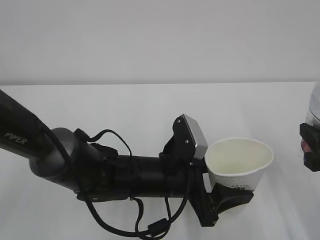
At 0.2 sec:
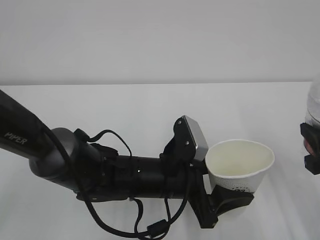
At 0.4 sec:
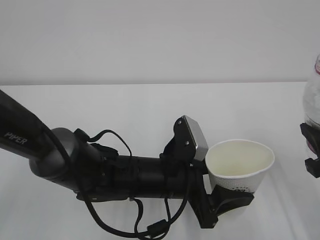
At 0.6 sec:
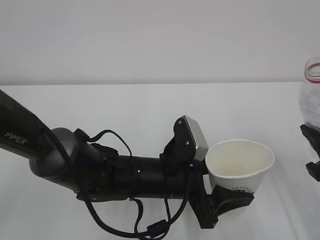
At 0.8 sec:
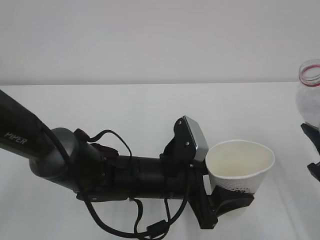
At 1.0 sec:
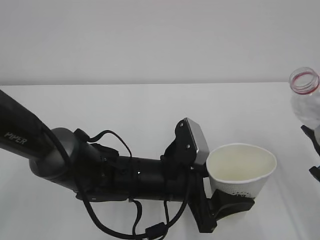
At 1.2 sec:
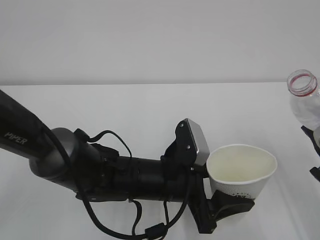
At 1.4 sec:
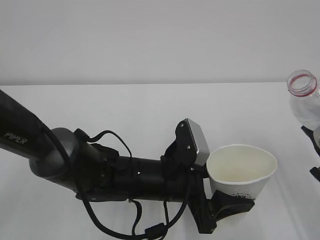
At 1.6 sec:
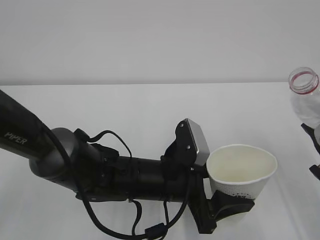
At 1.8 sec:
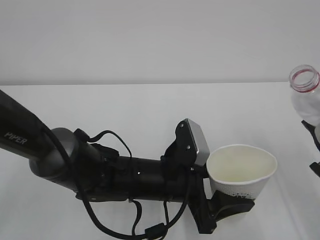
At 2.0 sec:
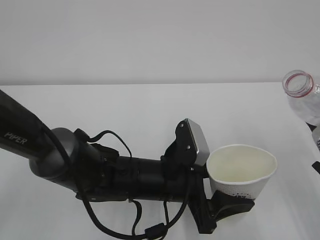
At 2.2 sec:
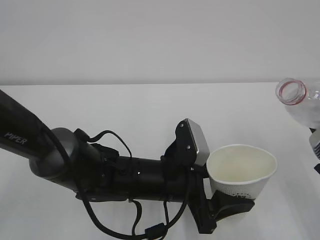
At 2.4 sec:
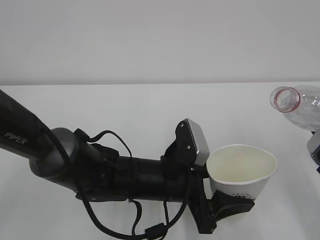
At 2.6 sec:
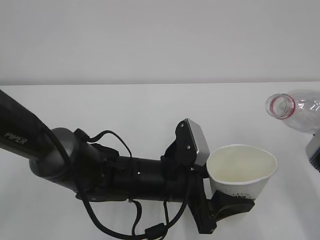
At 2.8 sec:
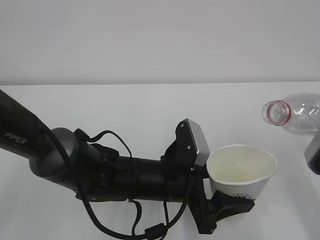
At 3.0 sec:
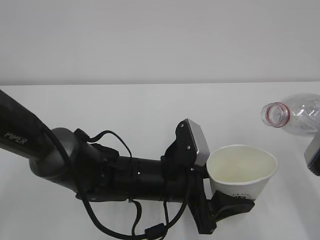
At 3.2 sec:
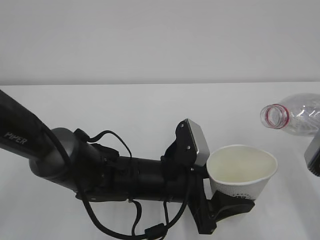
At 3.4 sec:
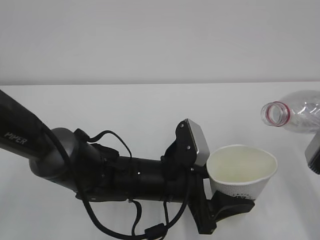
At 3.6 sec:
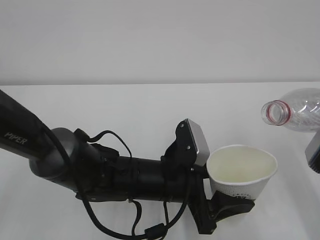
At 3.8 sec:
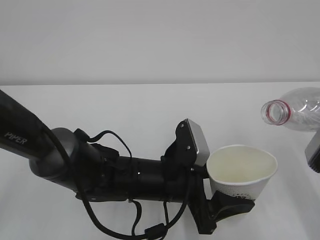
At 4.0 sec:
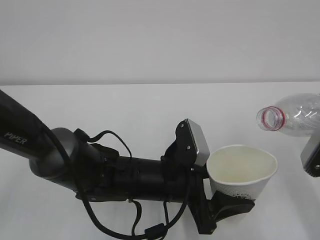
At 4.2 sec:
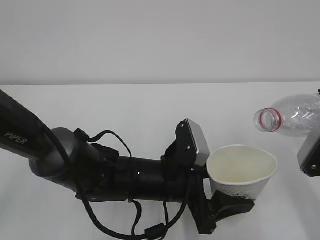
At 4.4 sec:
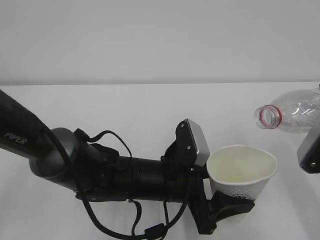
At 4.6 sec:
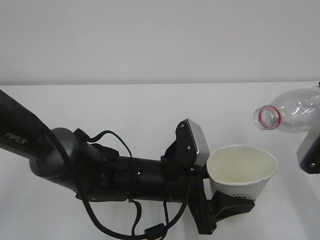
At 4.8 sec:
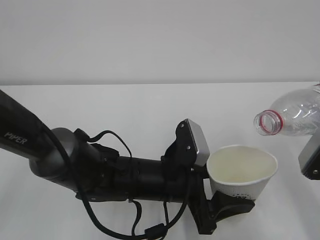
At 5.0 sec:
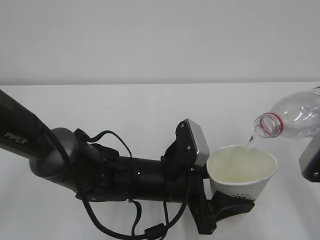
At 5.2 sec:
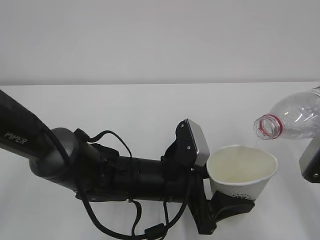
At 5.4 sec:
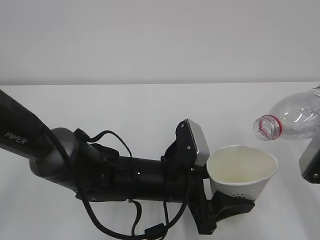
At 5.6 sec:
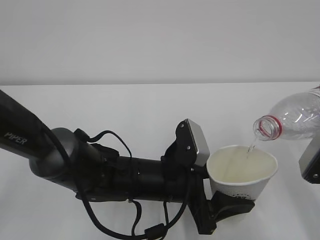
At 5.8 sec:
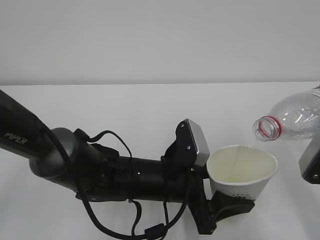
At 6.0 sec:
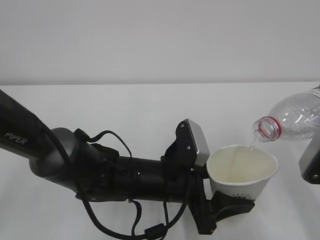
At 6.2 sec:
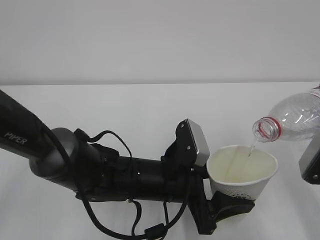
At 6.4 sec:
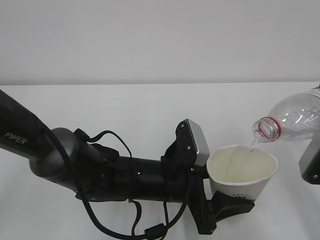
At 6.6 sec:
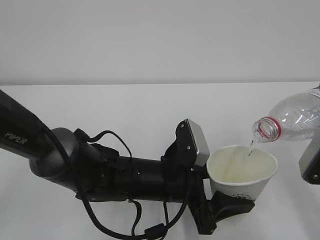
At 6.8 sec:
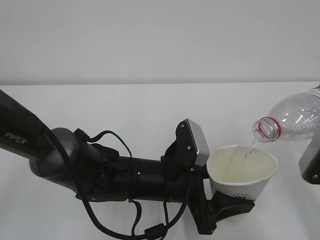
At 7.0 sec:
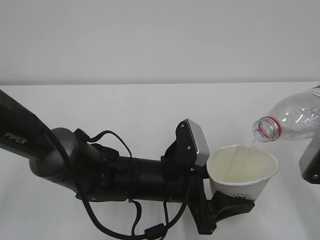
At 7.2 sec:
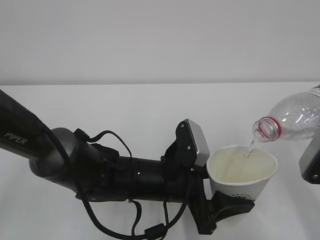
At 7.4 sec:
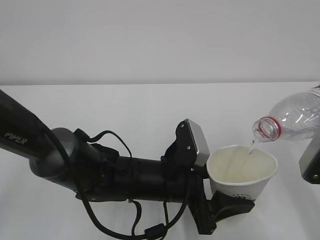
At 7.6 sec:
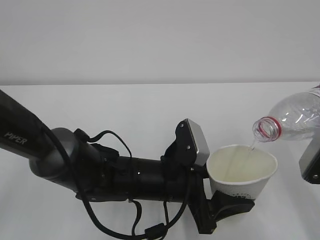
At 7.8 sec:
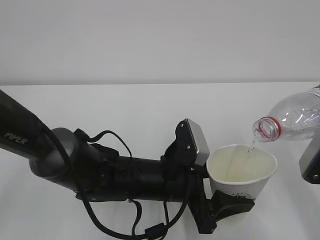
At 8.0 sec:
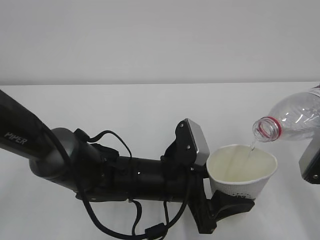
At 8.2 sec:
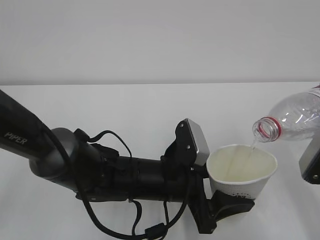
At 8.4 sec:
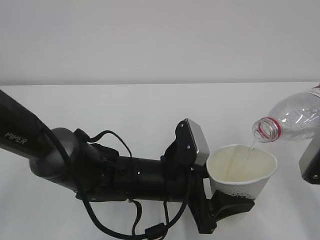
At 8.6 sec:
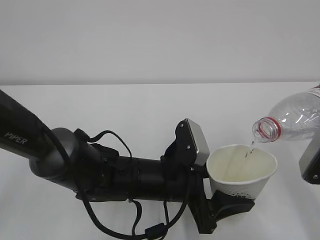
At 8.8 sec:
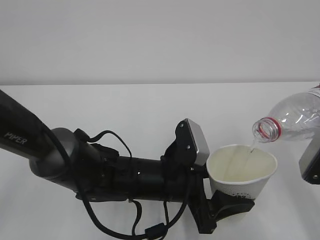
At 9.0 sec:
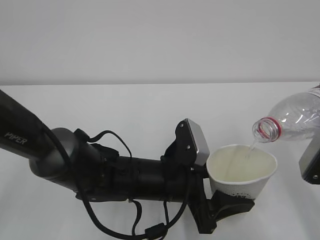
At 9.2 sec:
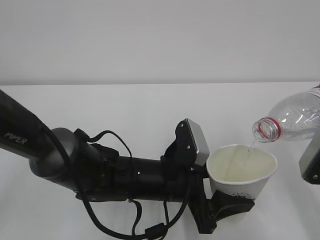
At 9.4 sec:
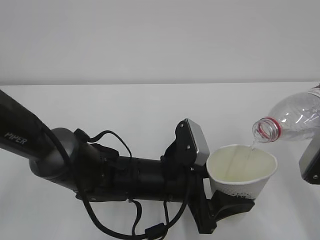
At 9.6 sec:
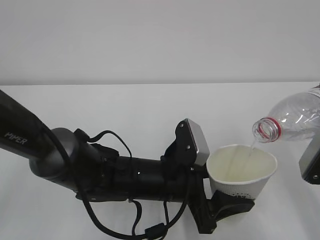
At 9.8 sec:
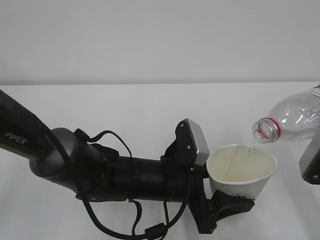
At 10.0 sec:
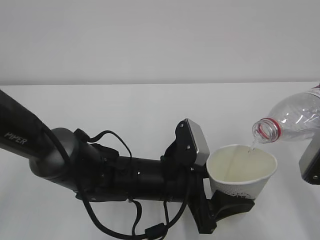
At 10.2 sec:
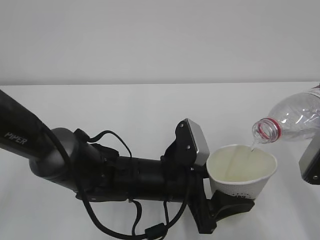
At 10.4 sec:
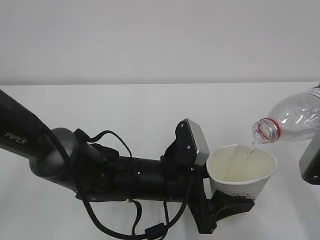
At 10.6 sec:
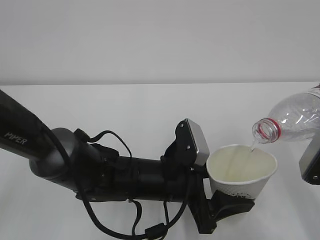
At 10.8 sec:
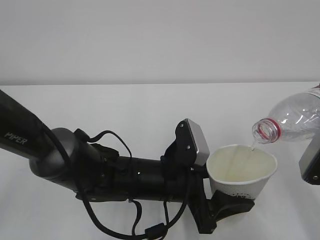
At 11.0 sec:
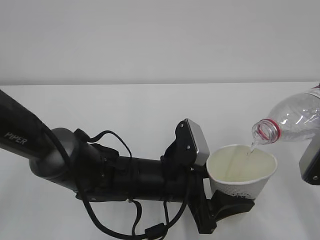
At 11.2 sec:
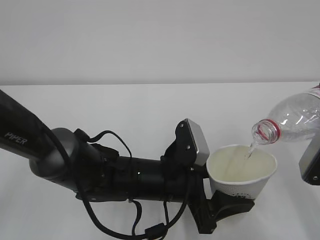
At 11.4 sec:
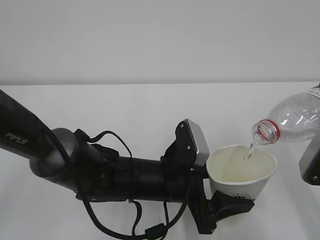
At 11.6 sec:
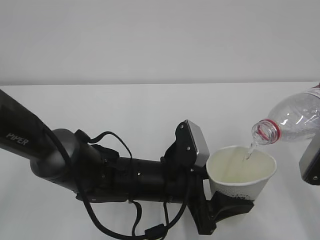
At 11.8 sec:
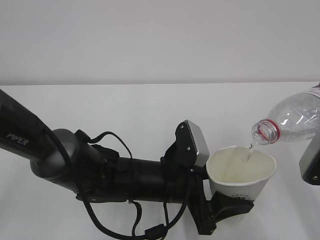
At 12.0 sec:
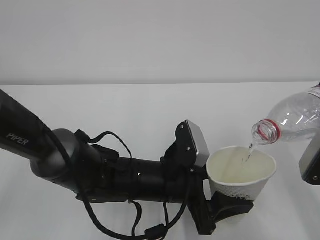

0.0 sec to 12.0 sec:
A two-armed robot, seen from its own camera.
3.0 sec to 6.0 sec: There are only small adjustments of the grippers.
6.0 sec to 12.0 sec: Both grippers stay about where they are.

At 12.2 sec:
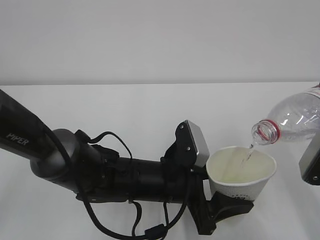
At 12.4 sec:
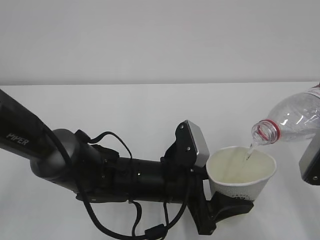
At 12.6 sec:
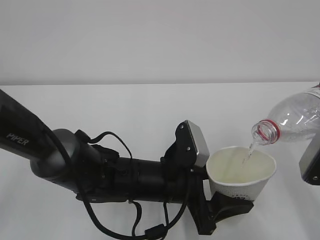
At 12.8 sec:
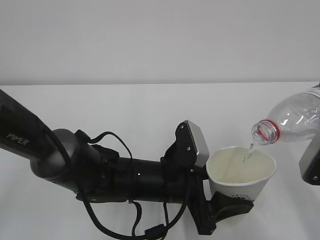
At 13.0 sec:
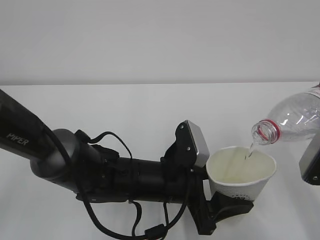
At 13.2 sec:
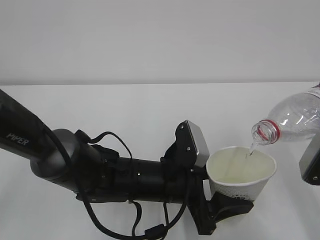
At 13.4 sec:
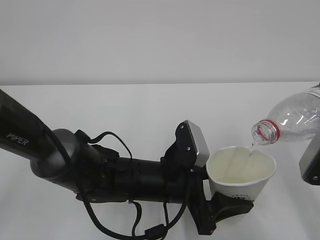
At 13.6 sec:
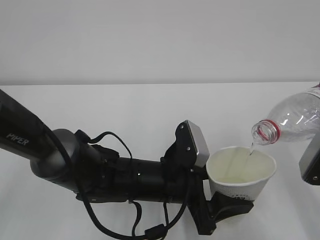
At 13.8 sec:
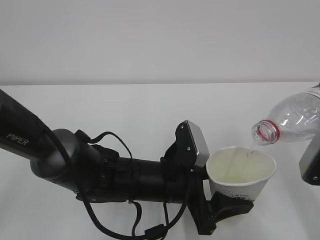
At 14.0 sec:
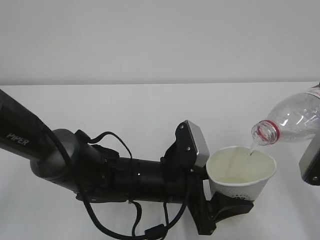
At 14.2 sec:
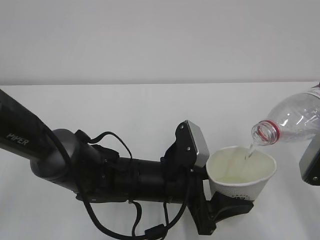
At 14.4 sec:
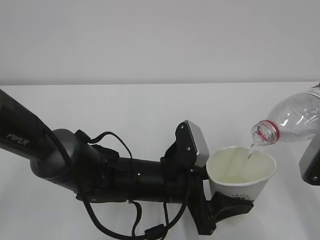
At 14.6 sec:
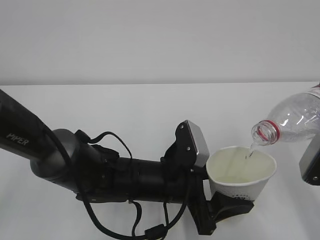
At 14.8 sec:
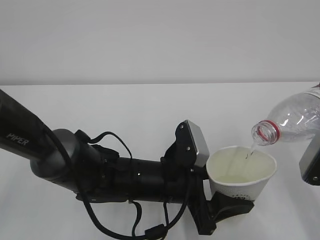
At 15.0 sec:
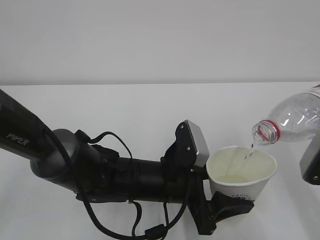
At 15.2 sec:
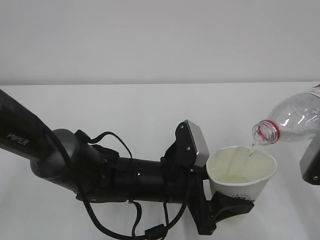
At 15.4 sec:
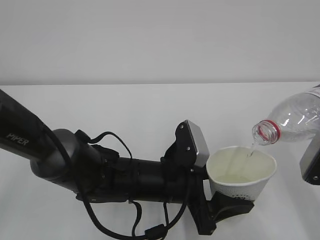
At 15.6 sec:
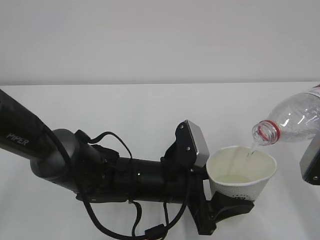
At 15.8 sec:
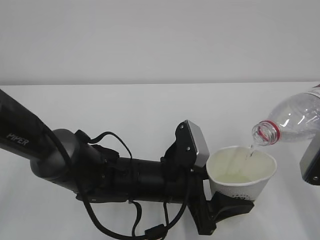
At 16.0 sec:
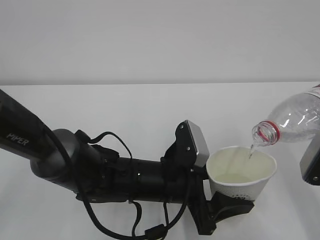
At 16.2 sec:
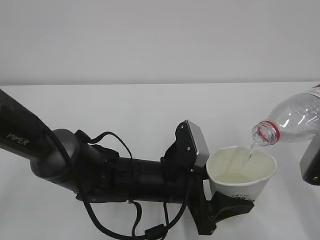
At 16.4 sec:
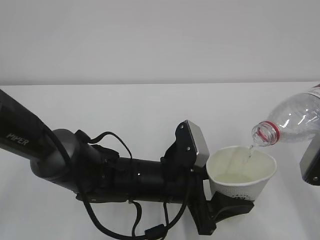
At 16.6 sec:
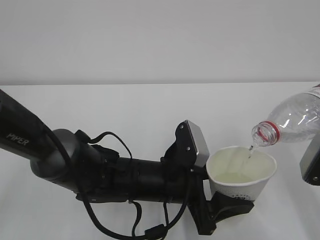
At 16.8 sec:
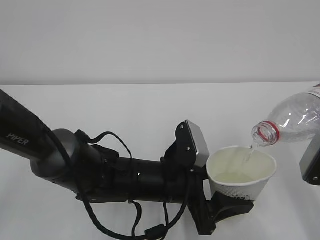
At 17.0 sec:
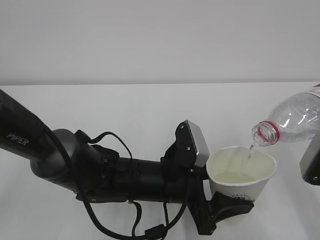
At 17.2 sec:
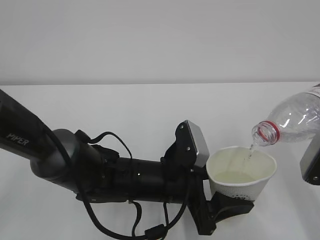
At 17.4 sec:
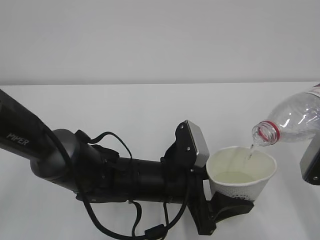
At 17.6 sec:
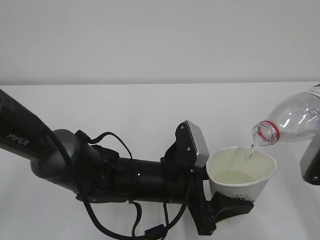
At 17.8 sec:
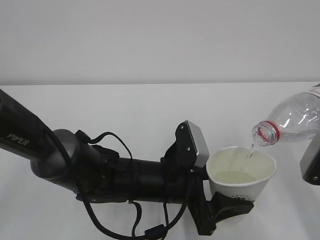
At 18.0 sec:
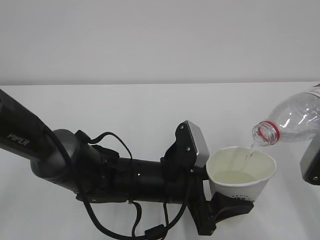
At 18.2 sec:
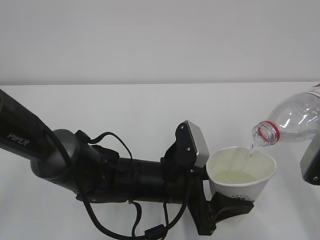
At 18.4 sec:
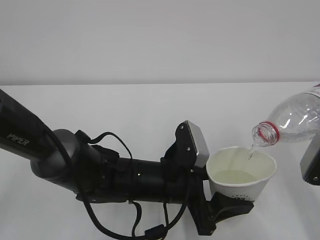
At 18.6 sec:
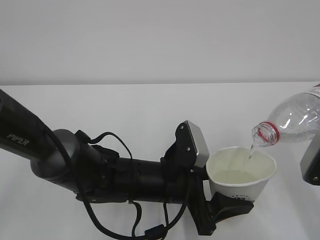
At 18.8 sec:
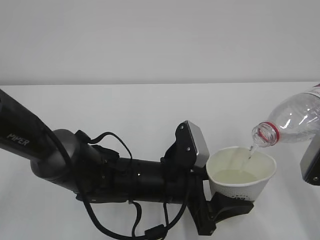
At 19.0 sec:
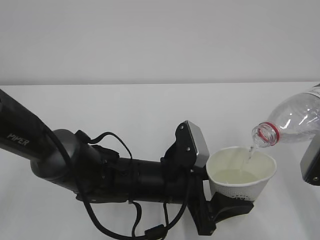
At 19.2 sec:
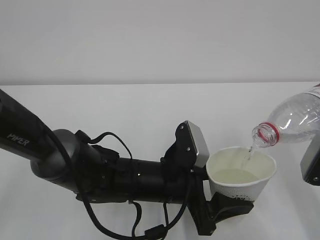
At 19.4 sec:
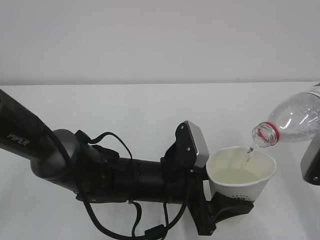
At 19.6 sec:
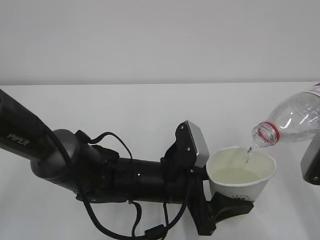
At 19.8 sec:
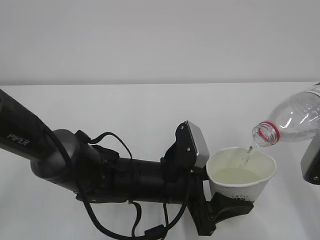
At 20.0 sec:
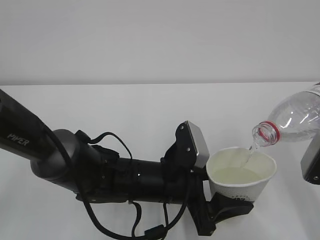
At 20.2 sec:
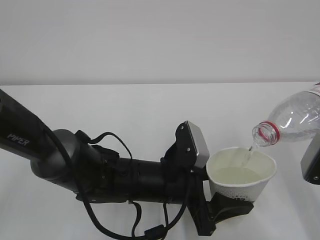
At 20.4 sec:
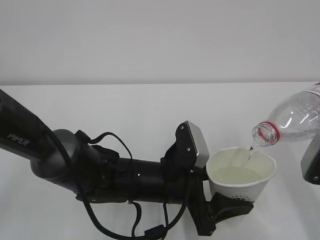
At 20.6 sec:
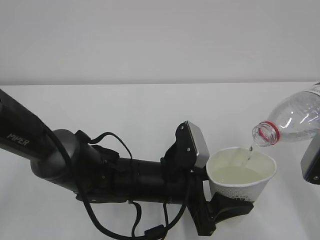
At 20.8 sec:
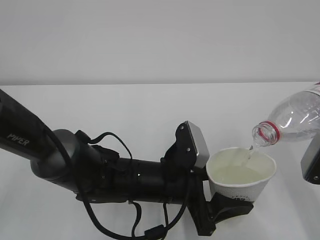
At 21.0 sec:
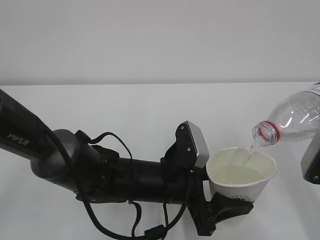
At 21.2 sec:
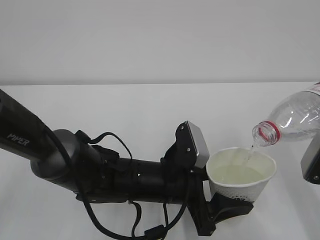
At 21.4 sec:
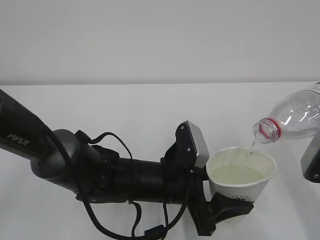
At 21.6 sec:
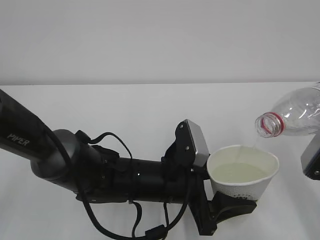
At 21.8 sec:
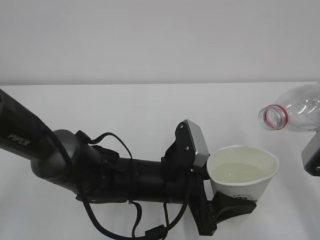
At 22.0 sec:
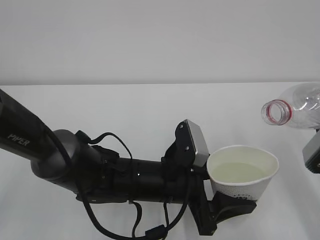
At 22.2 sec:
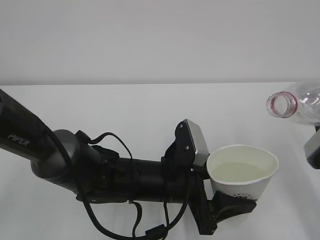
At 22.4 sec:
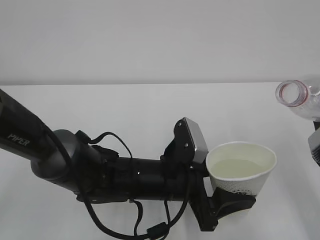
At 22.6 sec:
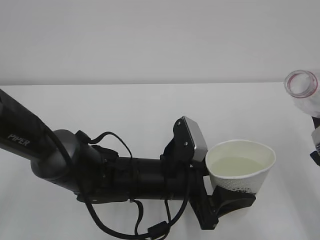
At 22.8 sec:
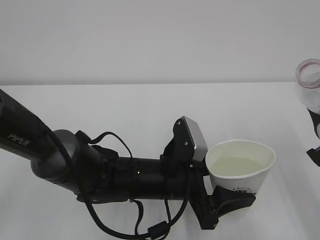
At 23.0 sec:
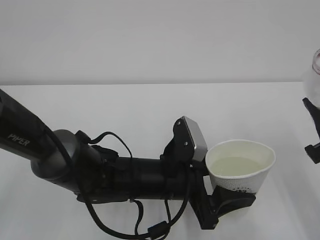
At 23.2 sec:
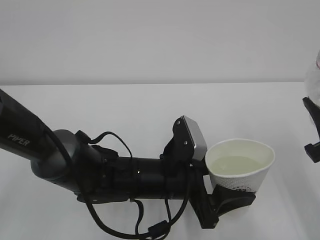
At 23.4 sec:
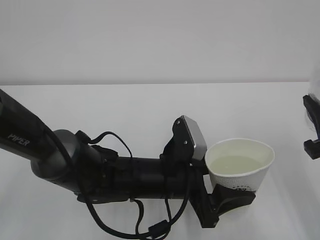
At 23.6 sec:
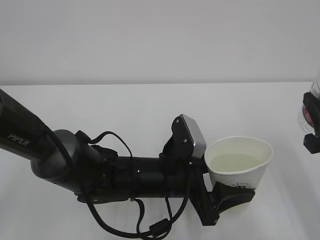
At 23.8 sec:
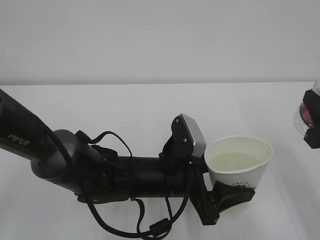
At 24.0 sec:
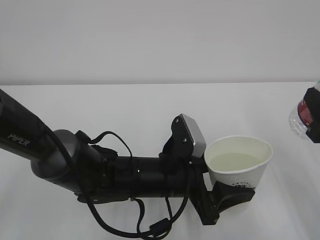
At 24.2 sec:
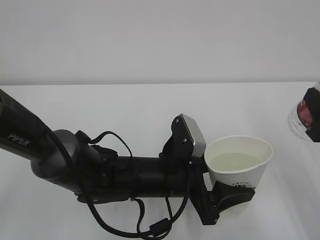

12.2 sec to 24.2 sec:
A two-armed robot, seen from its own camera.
12.2 sec to 21.2 sec: Both grippers stay put.
